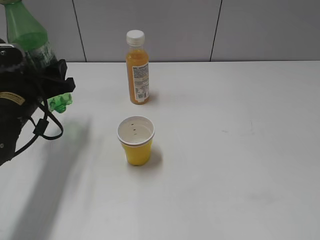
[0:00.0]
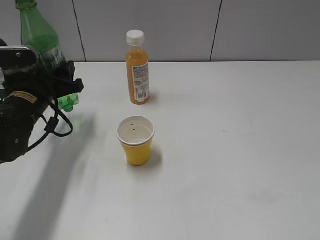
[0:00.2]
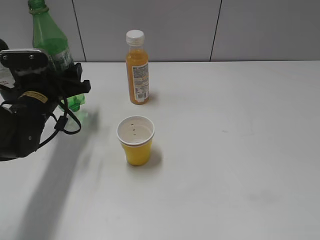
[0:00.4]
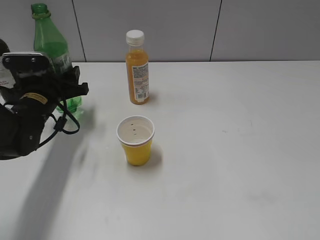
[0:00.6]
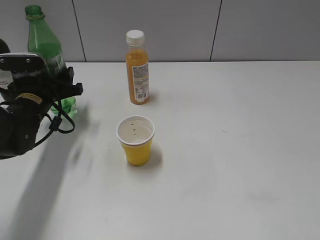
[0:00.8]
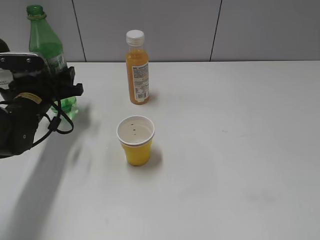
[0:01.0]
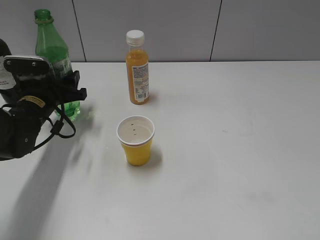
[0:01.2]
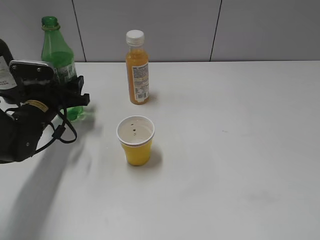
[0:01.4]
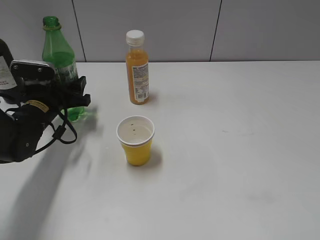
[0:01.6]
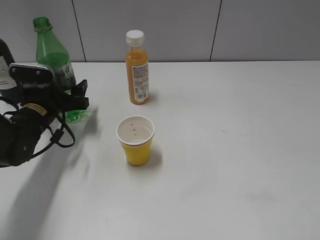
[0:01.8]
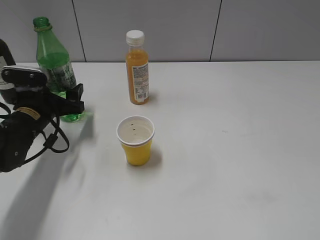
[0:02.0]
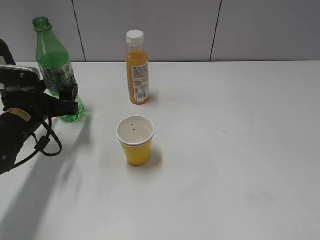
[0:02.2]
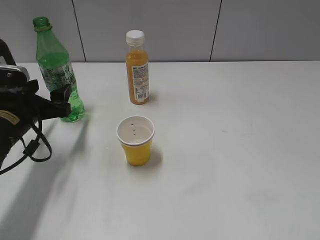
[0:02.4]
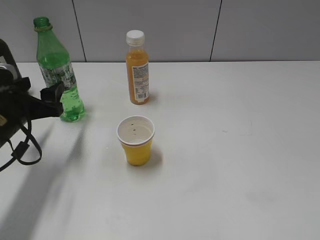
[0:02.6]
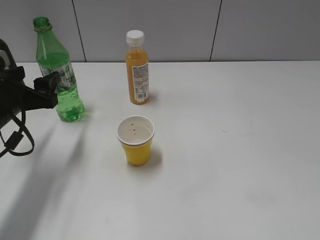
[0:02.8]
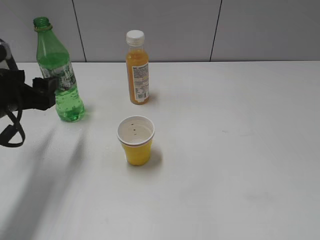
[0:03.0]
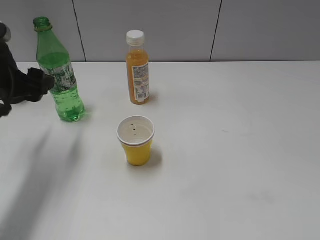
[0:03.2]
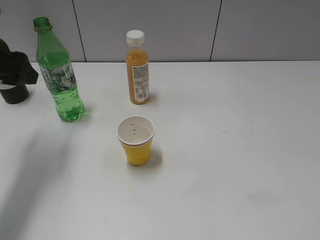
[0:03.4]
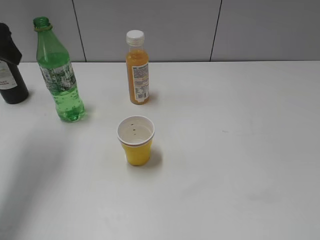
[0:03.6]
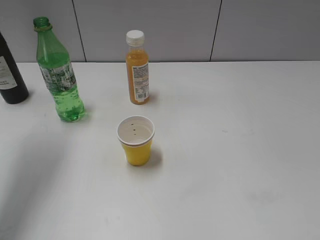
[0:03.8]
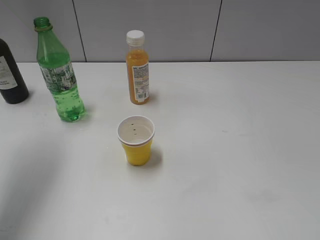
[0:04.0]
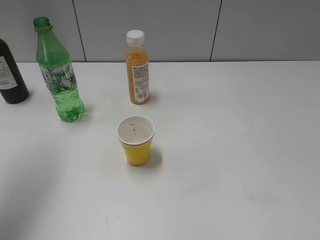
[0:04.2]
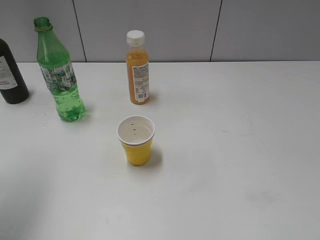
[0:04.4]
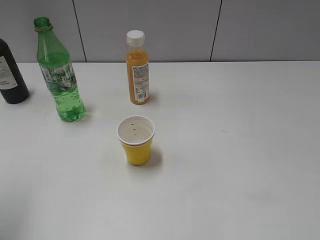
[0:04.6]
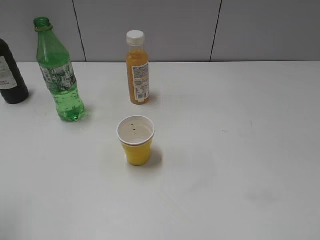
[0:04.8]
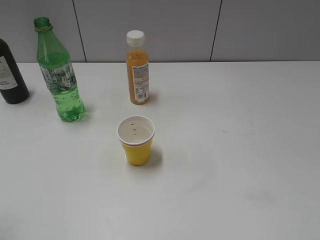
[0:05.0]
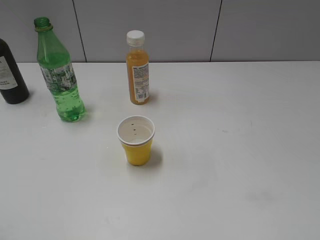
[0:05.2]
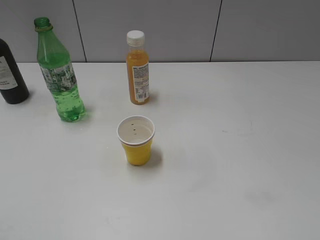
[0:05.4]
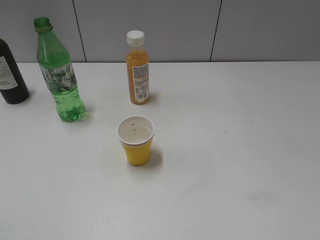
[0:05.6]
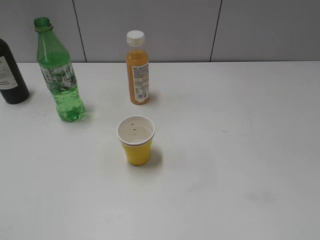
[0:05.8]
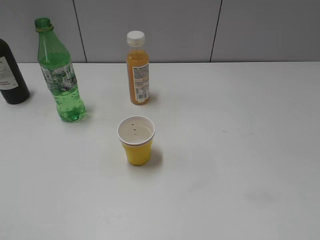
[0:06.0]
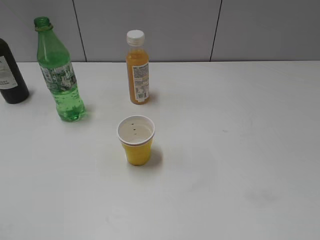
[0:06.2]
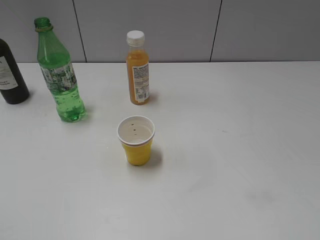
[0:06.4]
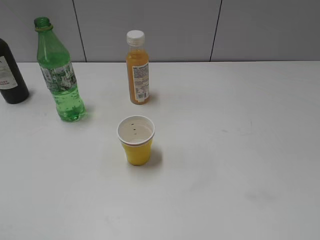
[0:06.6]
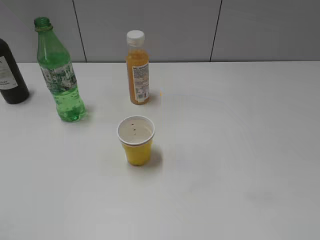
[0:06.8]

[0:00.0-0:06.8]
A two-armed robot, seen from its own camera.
Step, 0:00.0 to 0:02.2: Place the sprite bottle on the table with left gripper.
0:00.0 to 0:01.4: The left gripper is displaced downward and forward by about 10 cm.
0:01.4 to 0:02.8: The left gripper moves backward and upward, approximately 10 cm, and opens up.
0:02.8 to 0:04.0: The left gripper is displaced upward by about 20 cm.
0:04.0 to 0:05.4: The left gripper heads backward, covering approximately 25 cm.
